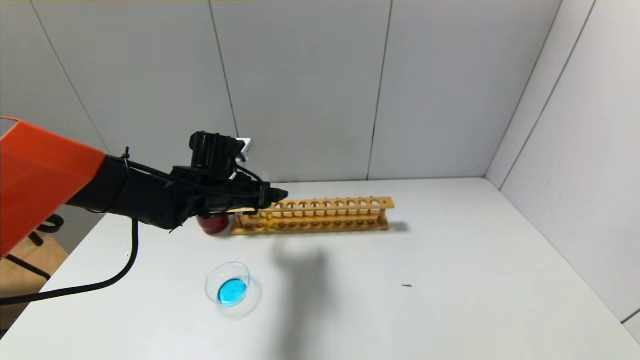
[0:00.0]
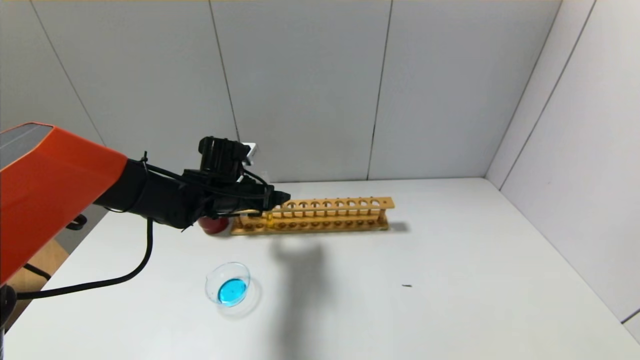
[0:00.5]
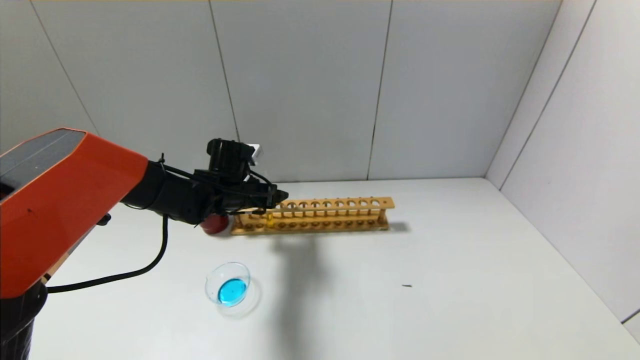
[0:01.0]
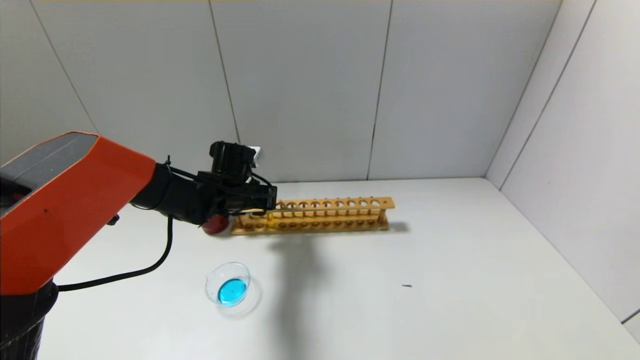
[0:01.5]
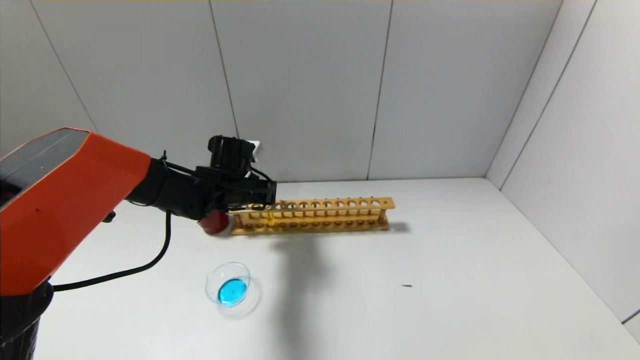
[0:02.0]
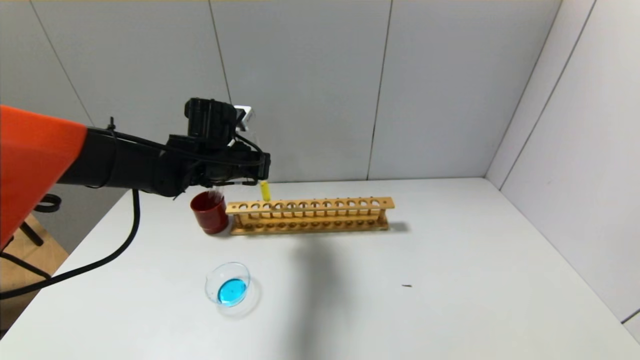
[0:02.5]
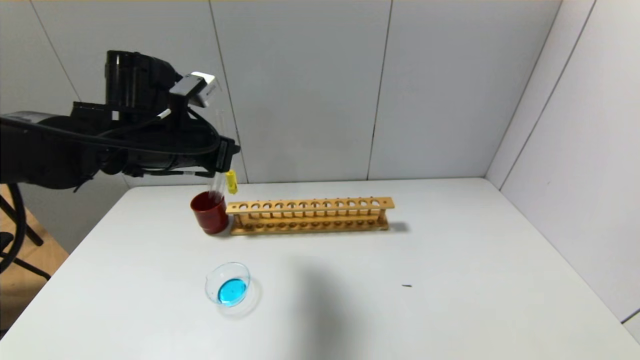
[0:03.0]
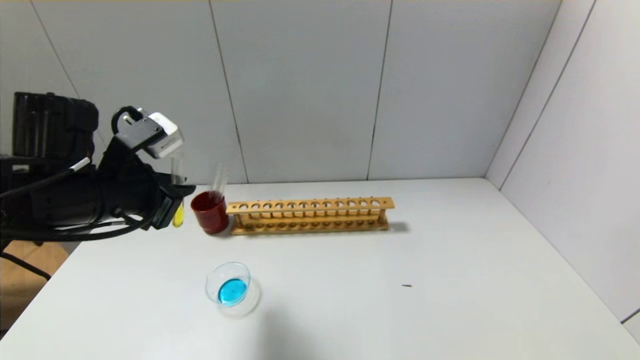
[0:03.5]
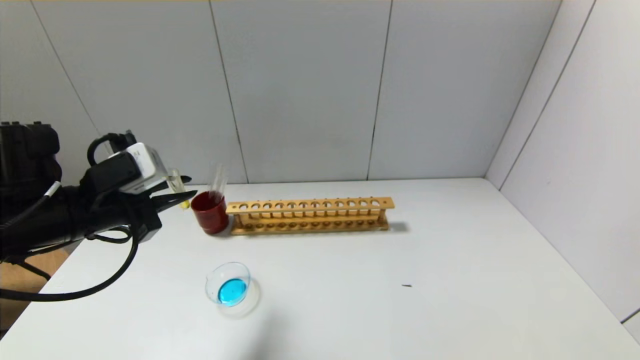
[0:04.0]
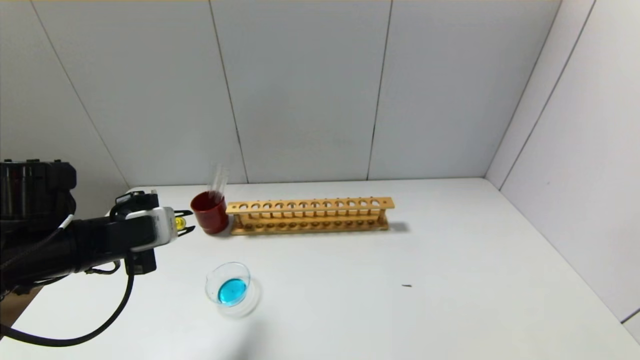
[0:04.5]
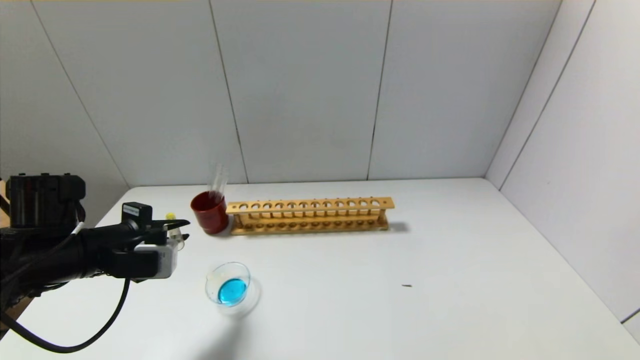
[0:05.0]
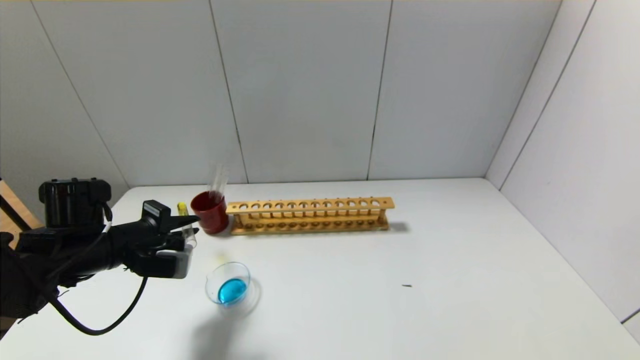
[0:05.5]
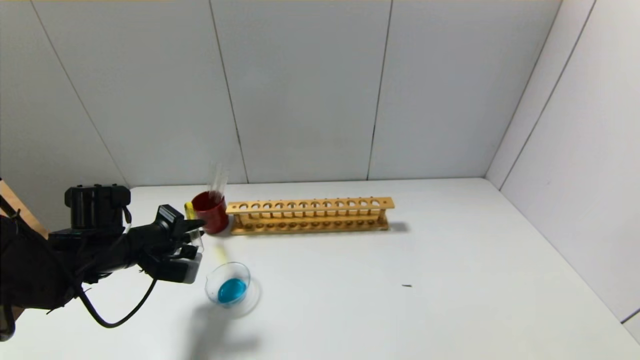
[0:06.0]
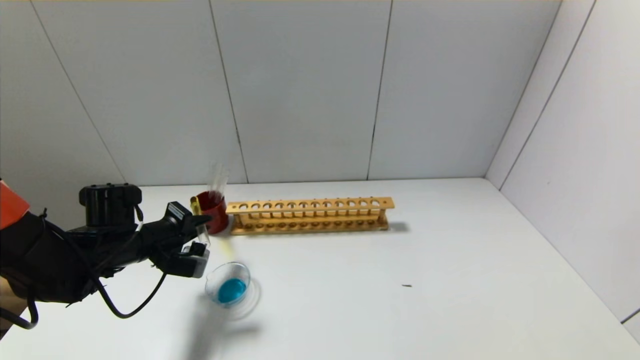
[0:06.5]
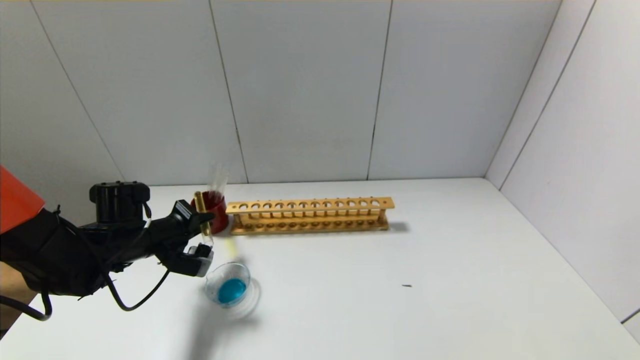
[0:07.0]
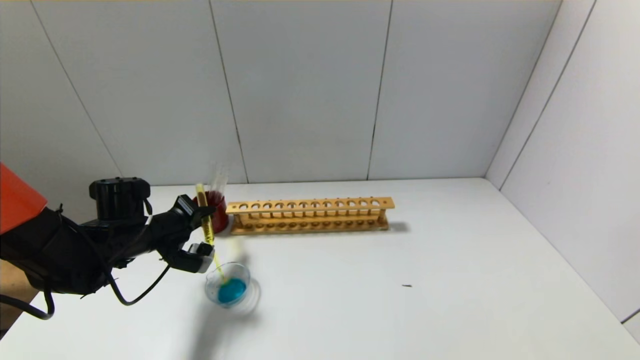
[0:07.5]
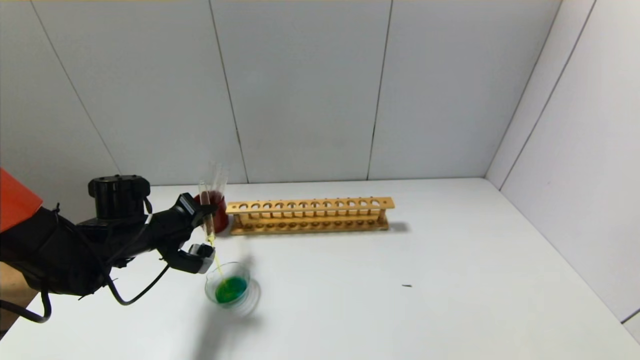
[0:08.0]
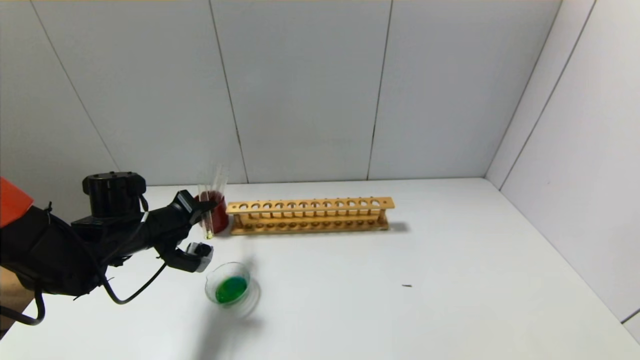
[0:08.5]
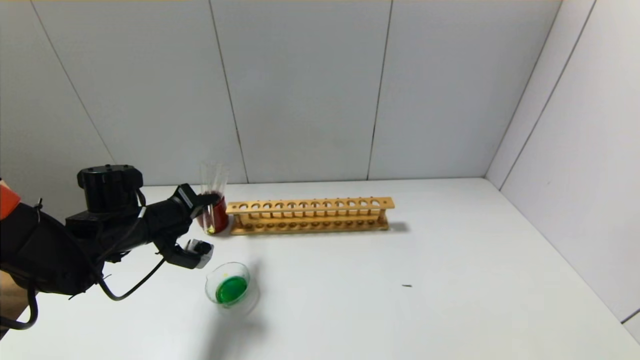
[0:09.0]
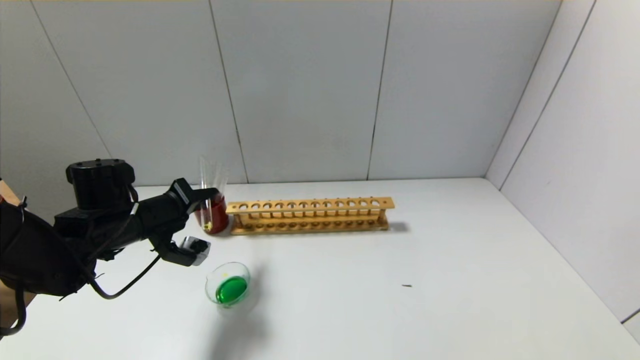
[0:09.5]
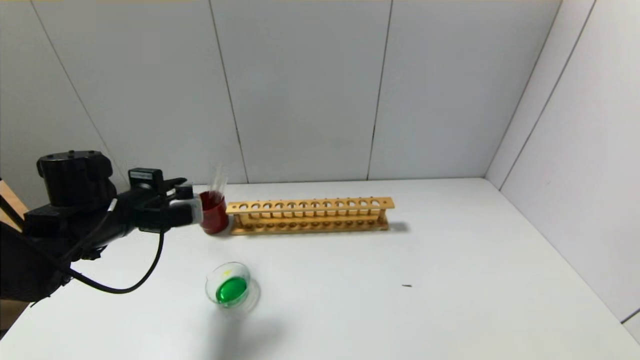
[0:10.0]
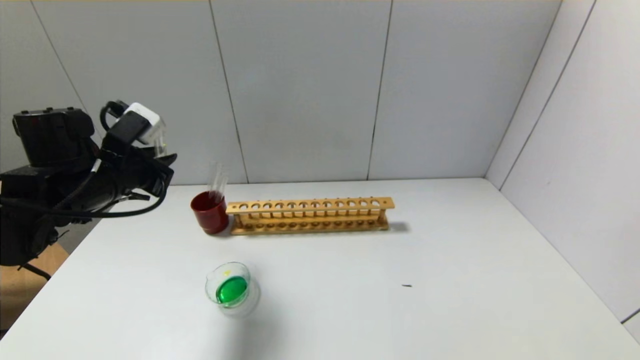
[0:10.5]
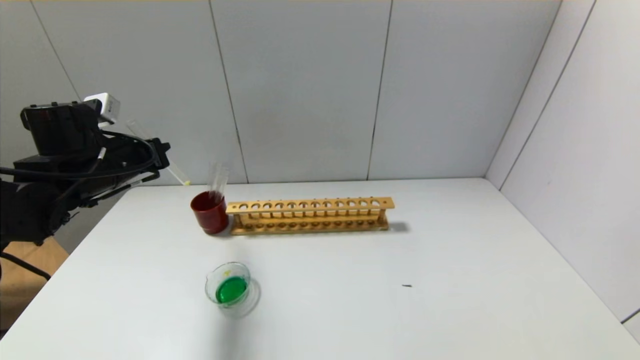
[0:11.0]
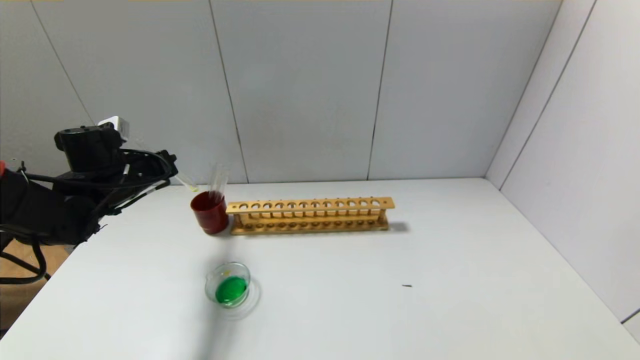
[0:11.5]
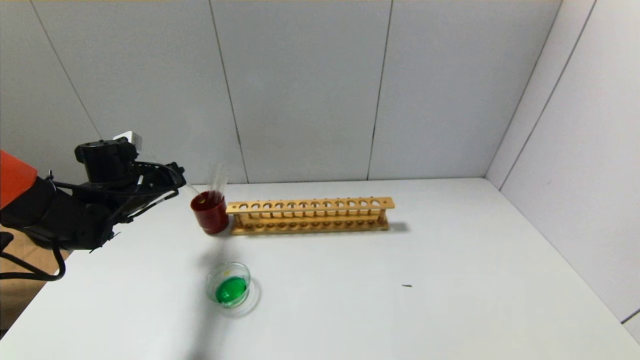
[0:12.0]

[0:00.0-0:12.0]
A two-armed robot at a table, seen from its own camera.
Step, 2.0 to 9.5 s: Pour the yellow reagent into the graduated cylinder with the left gripper.
0.0 to 2.0 s: The left gripper closes.
2.0 to 4.0 s: The left gripper heads backward, to the left and upward, covering approximately 25 cm.
4.0 to 6.0 s: The left gripper goes about 10 cm downward and forward.
6.0 to 8.0 s: There are only small adjustments of the grippers.
8.0 to 10.0 s: The left gripper shifts roughly 5 cm upward.
10.0 to 12.0 s: The left gripper goes approximately 10 cm forward.

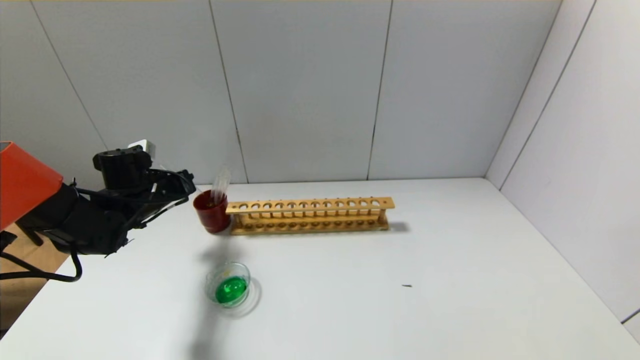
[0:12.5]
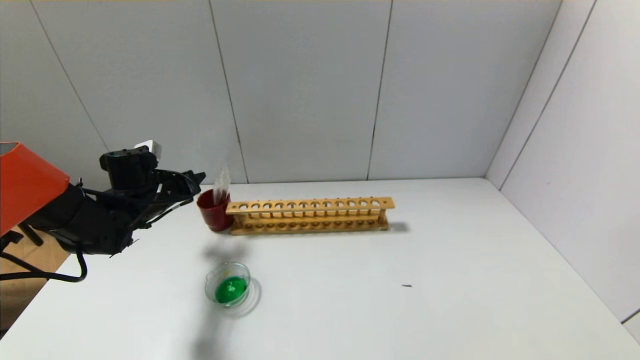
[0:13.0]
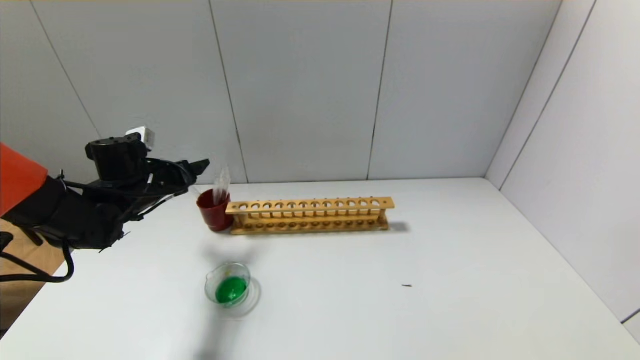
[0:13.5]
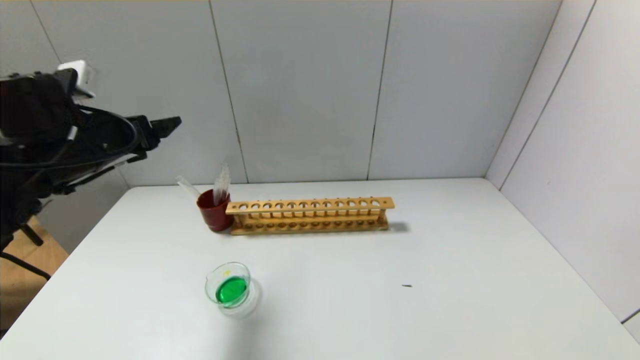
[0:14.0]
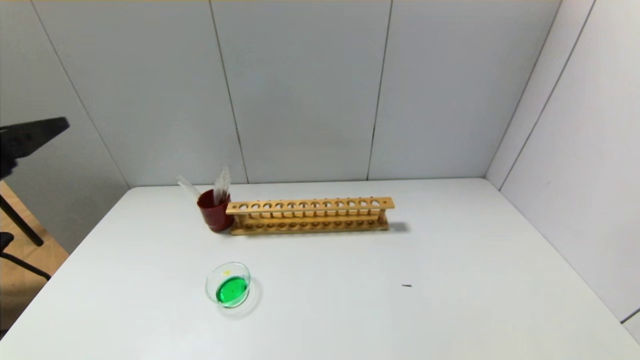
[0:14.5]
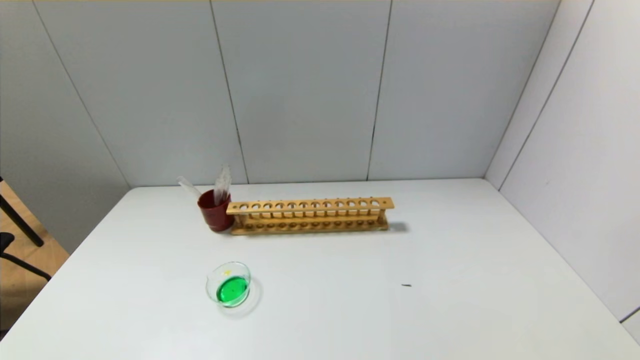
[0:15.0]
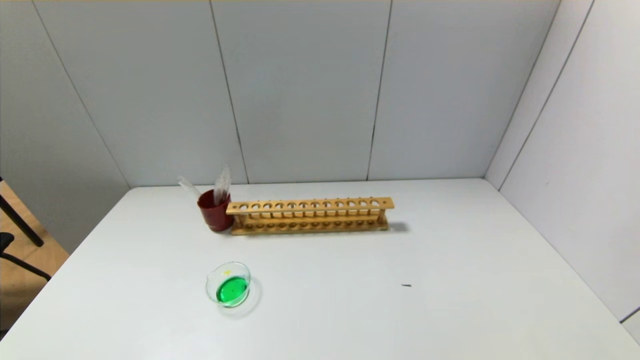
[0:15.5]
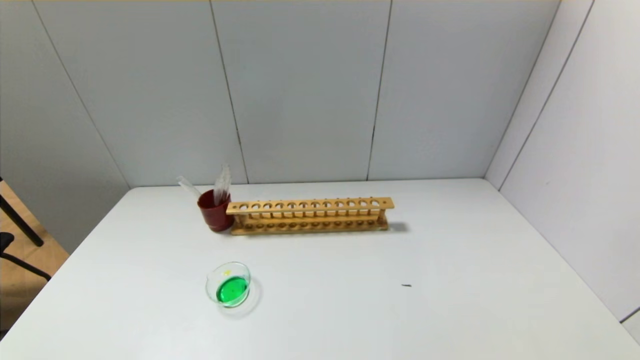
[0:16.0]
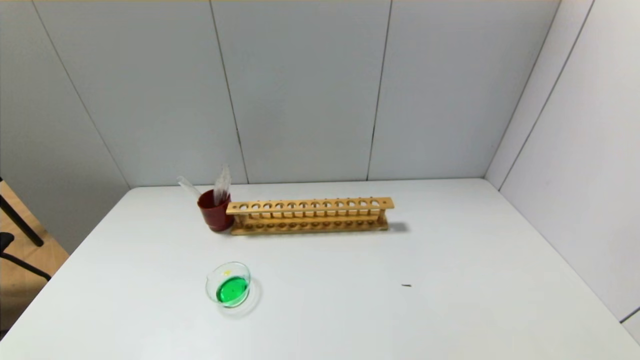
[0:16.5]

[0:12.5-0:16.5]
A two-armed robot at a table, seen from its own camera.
12.5 to 14.5 s: The left gripper heads backward and upward, covering about 35 cm, and opens its fingers.
14.5 to 16.5 s: The left gripper is displaced downward and backward by roughly 25 cm.

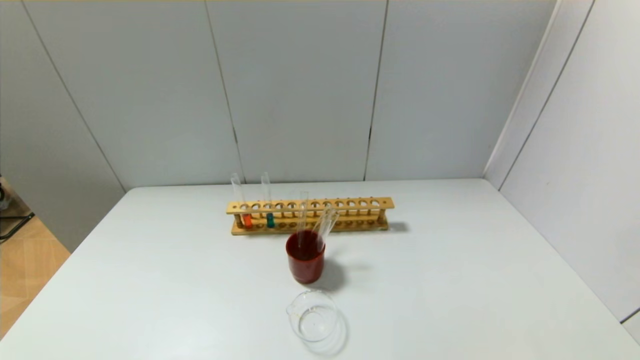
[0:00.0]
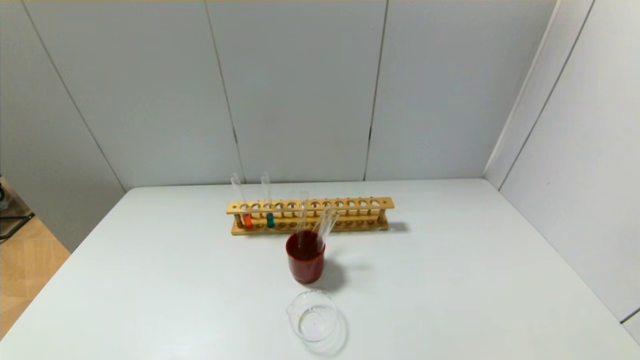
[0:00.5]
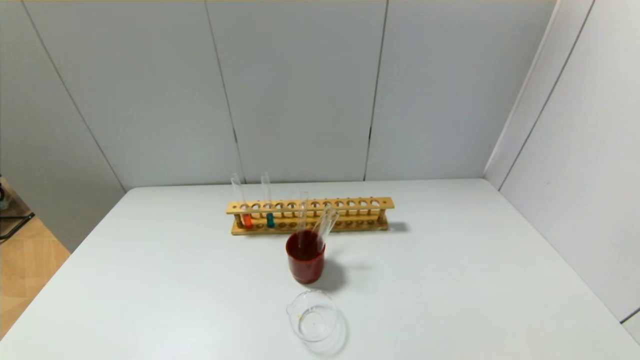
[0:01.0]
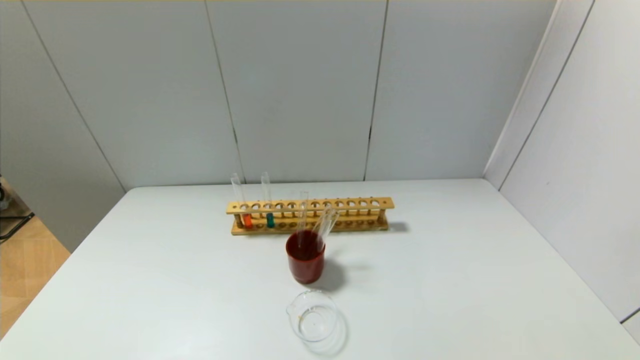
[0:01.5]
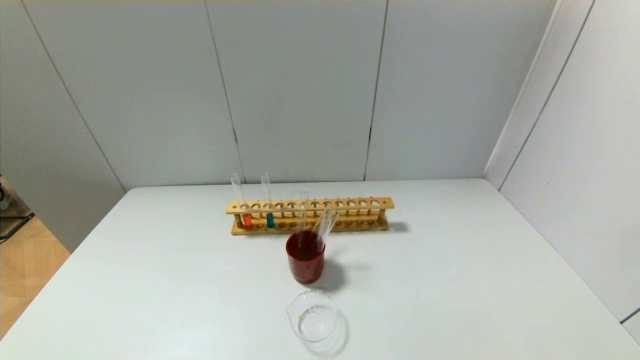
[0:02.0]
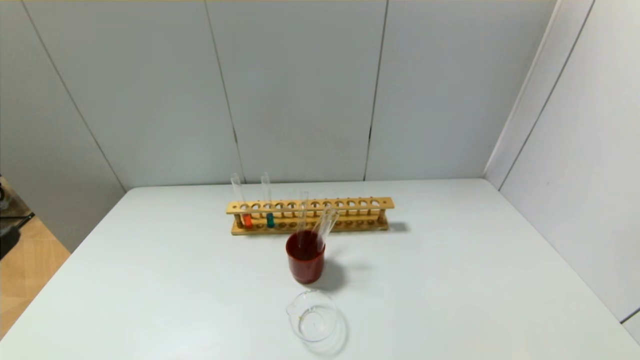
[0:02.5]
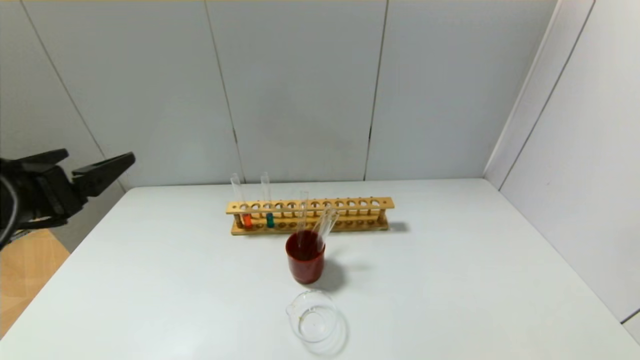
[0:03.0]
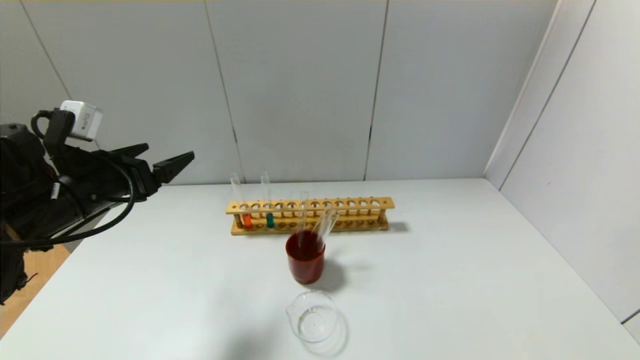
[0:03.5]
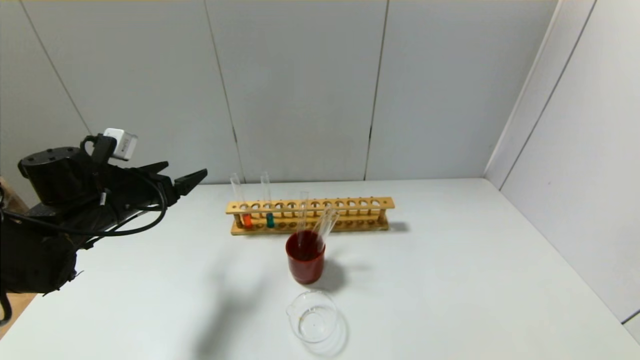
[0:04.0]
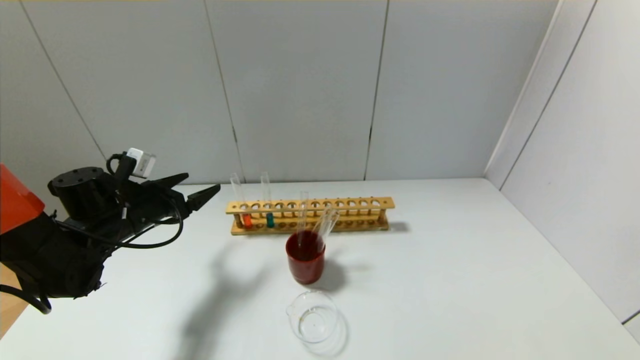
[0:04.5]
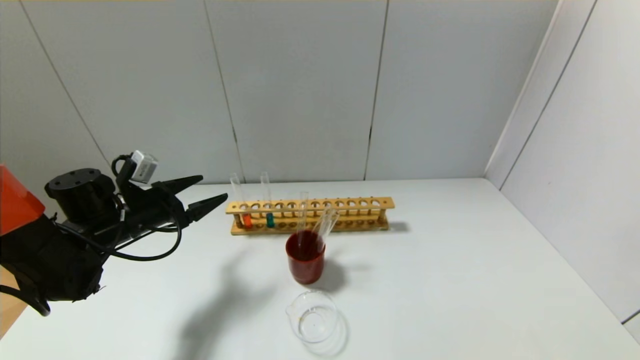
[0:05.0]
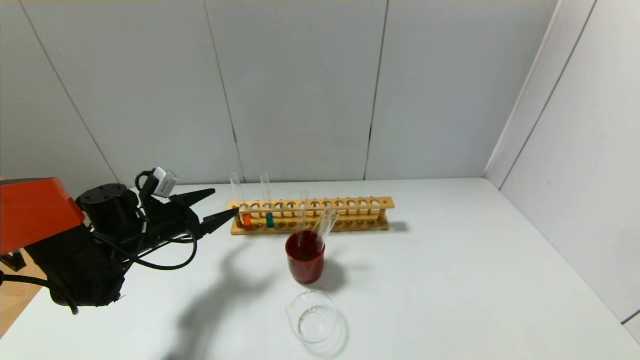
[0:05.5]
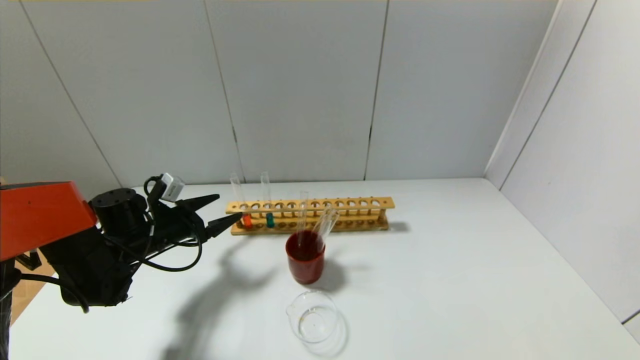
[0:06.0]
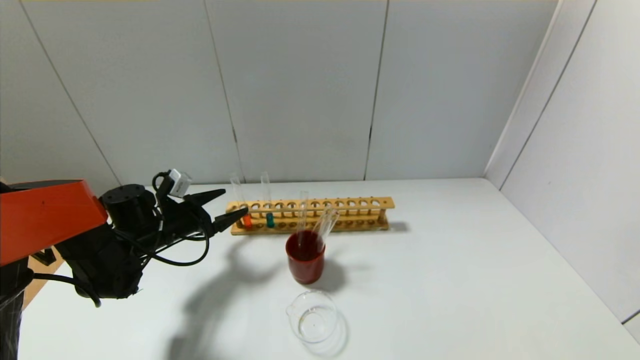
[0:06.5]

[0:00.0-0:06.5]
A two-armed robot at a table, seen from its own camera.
2.0 to 4.5 s: The left gripper is displaced forward by roughly 40 cm.
4.5 to 6.5 s: The left gripper shifts some 5 cm downward.
